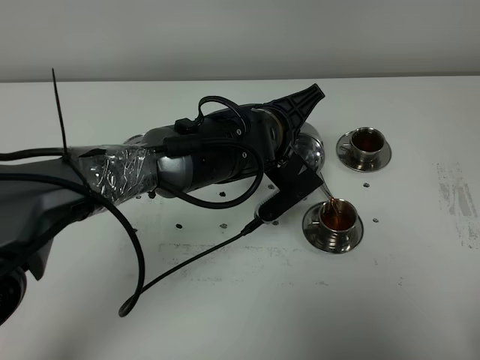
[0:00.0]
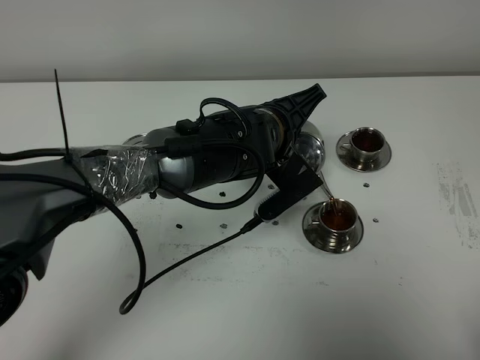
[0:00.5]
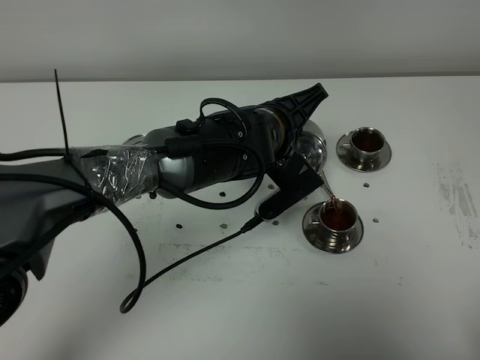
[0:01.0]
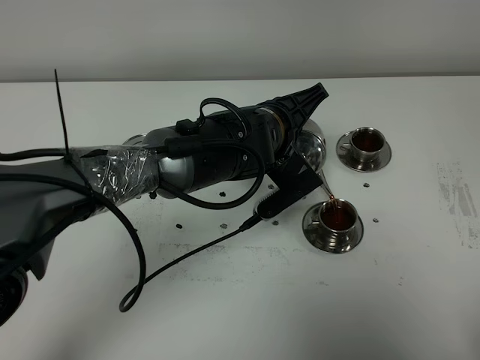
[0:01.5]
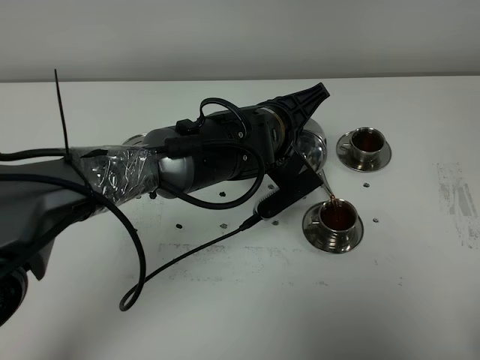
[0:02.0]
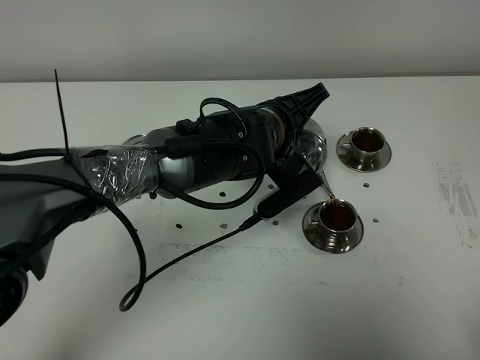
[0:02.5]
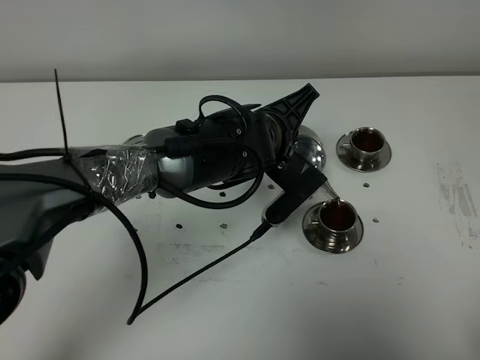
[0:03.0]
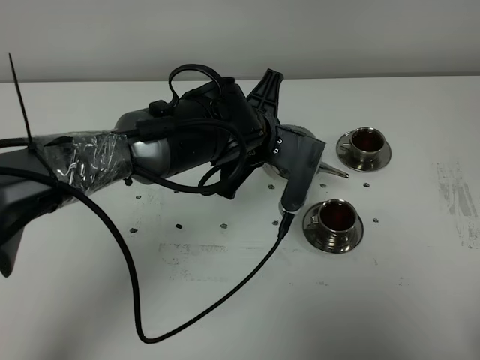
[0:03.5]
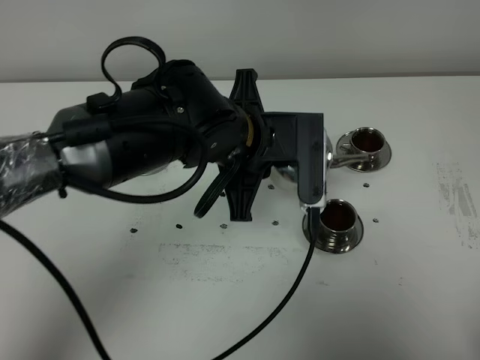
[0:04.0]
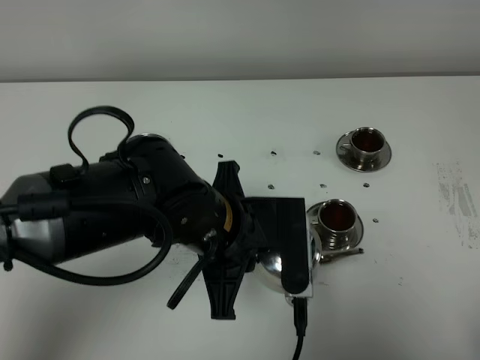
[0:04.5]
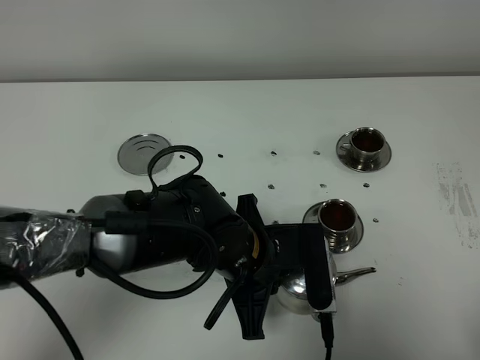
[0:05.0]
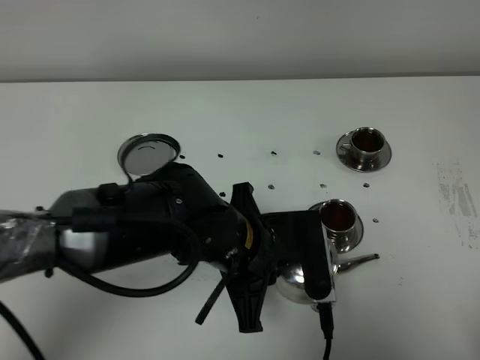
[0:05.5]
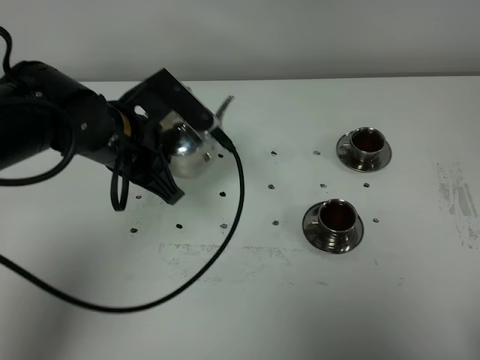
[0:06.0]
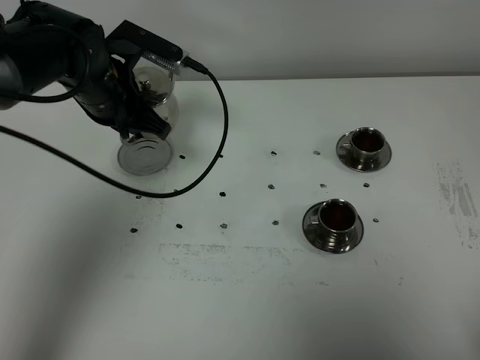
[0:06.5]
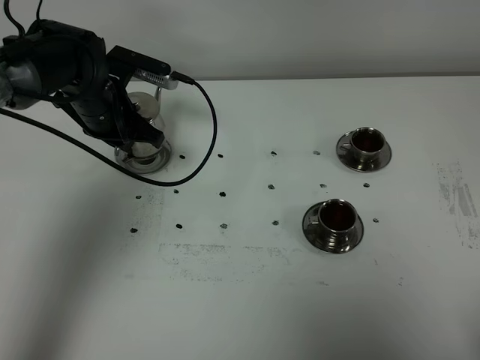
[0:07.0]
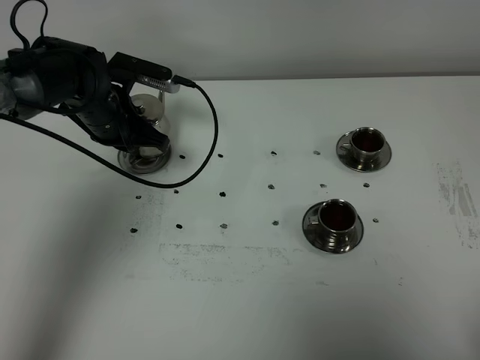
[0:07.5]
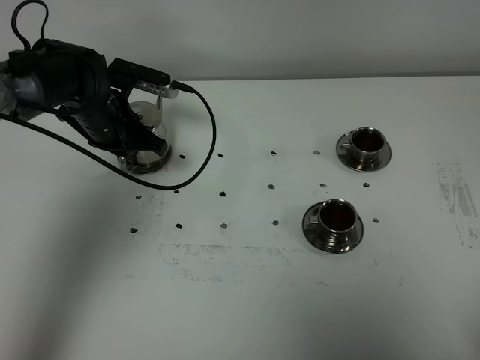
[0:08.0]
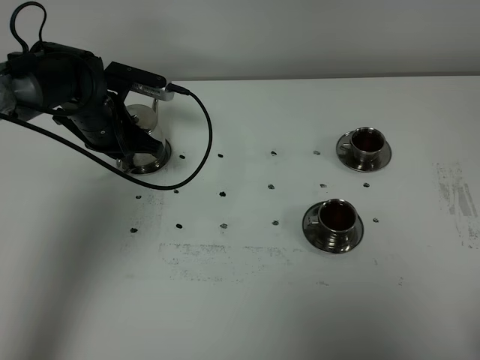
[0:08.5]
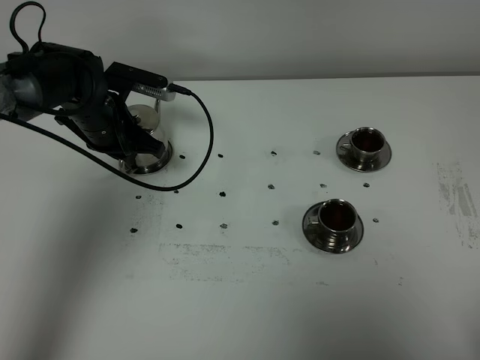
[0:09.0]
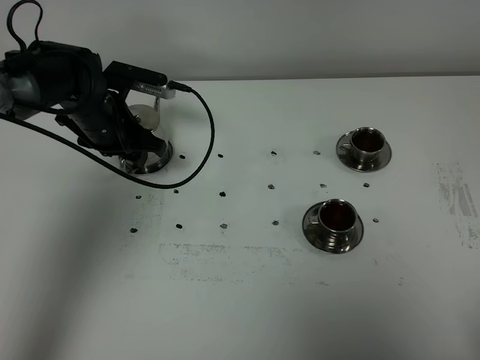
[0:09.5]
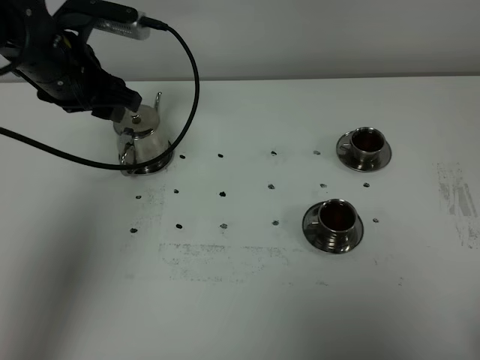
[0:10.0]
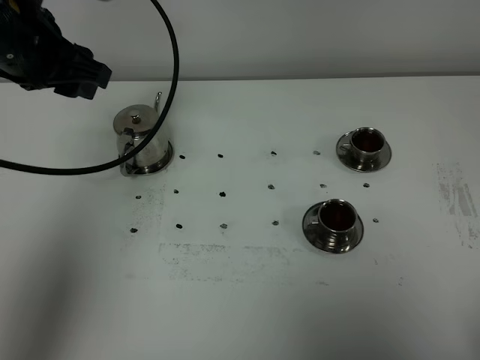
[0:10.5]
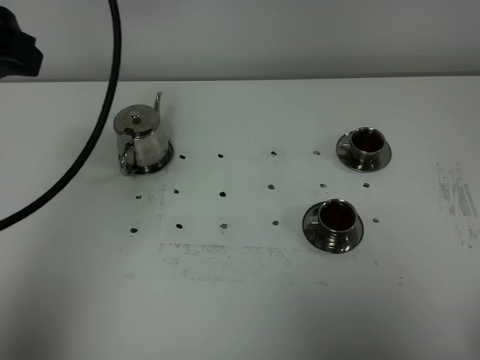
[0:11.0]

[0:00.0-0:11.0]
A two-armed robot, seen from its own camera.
Task of the whole recording: grasp the stainless steel teapot and pour the tea into the two stainless steel teacups one by one, put the stainless steel teapot back in its original place.
Step, 0:00.0 to 0:03.0: Pour tea into the teacup with the left gripper.
0:00.0 to 0:02.0: The two grippers keep their place.
0:03.5 to 0:05.5: The left gripper shifts roughly 10 cm backward.
0:05.5 to 0:07.5: The left gripper moves forward and to the left, roughly 25 cm.
0:07.5 to 0:09.0: Neither gripper changes place.
0:09.0 to 0:11.0: The left gripper shifts some 35 cm upward and backward, and opens up.

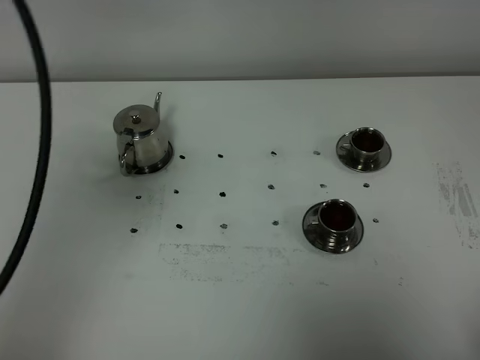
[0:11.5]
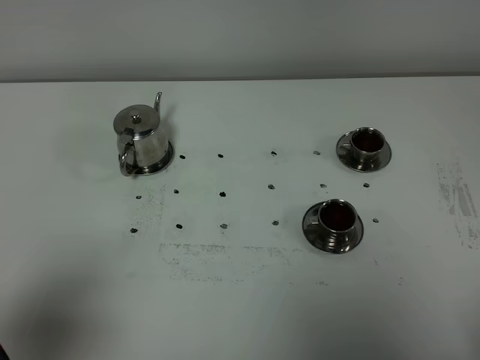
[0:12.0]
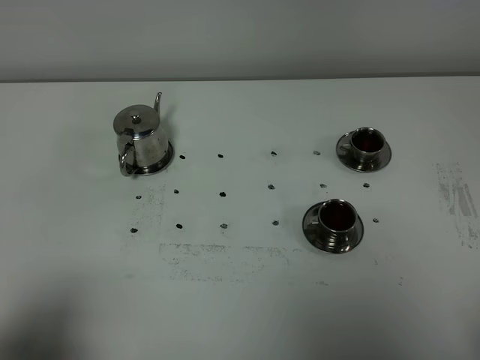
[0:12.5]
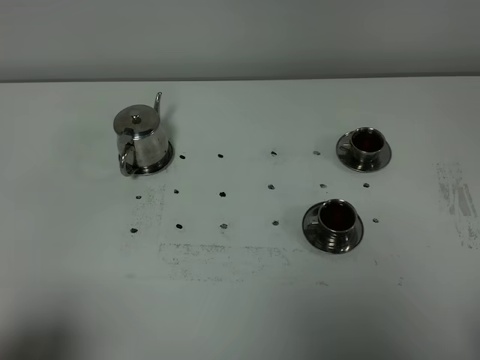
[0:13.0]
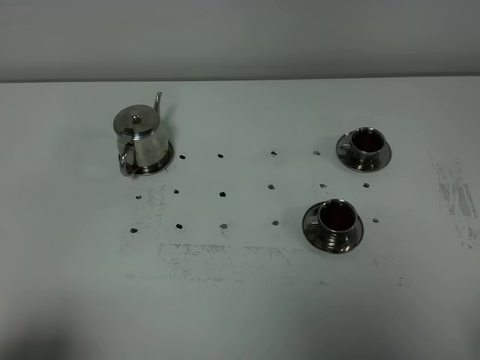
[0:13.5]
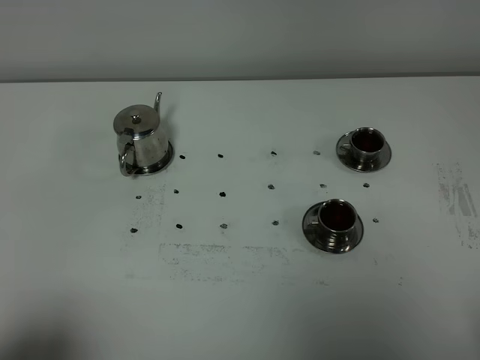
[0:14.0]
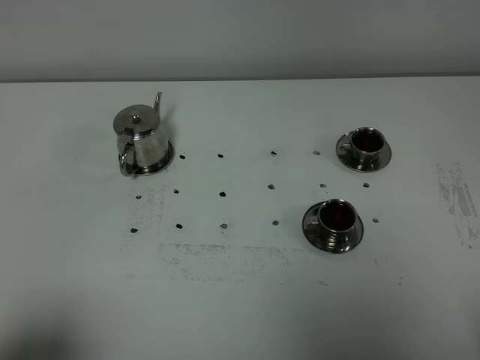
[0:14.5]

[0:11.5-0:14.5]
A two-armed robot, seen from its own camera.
Task of the whole recording: grasp the stainless steel teapot and pour the tea into the two stainless steel teacups one by one, put the stainless steel teapot back in its original place.
0:11.5 to 0:13.0: The left gripper shifts about 25 cm downward and backward.

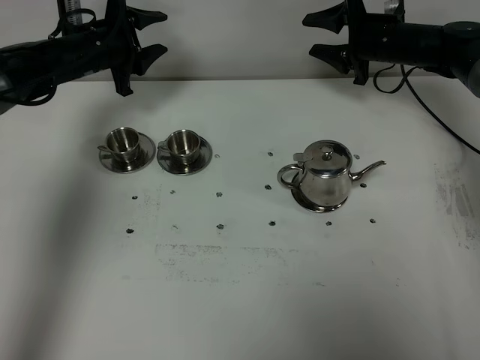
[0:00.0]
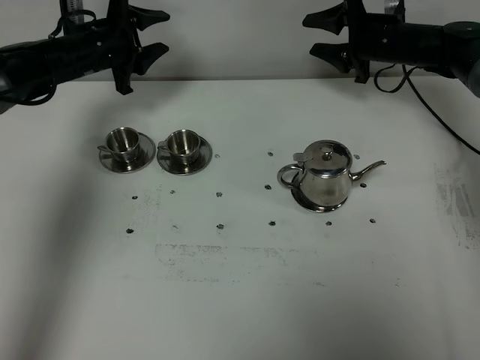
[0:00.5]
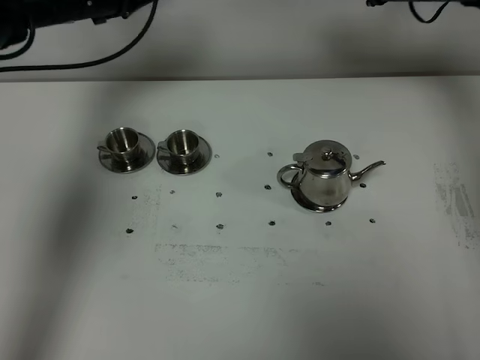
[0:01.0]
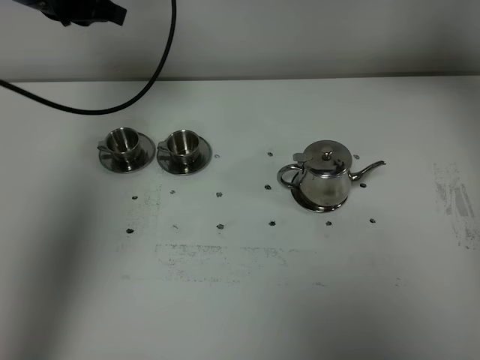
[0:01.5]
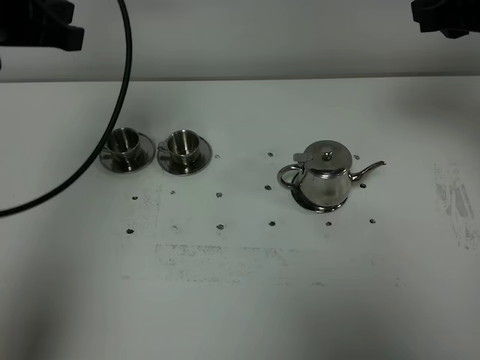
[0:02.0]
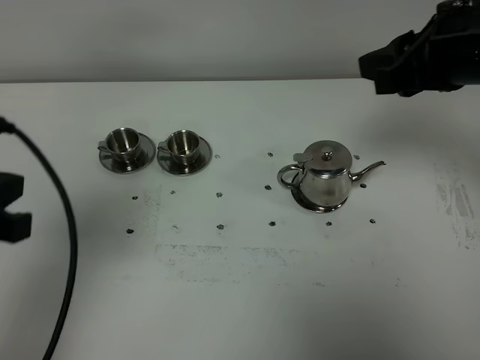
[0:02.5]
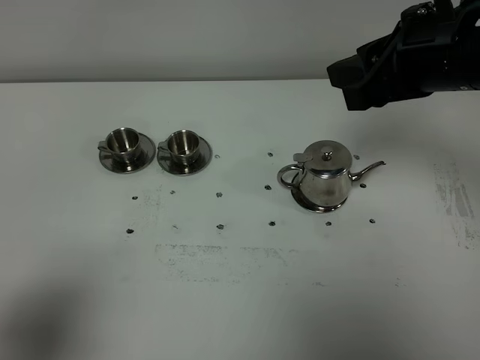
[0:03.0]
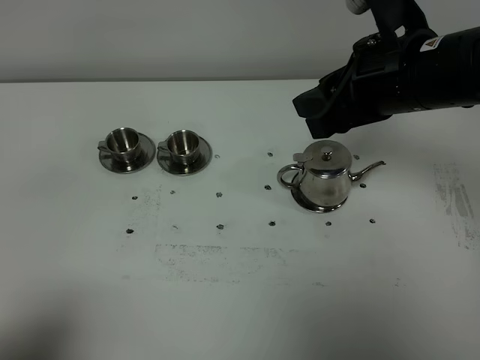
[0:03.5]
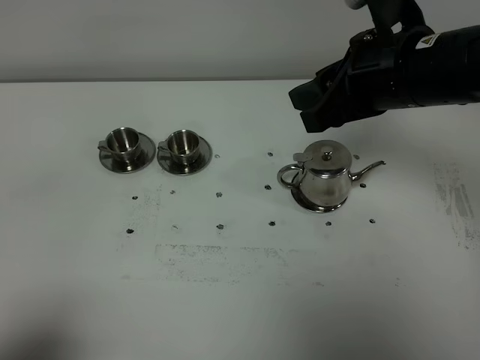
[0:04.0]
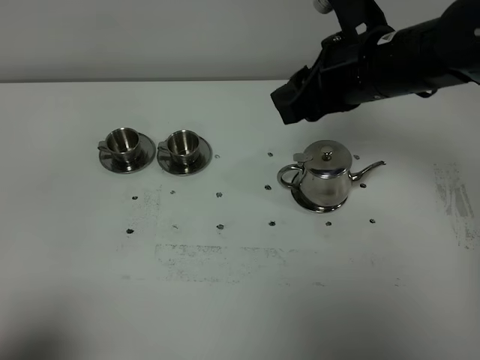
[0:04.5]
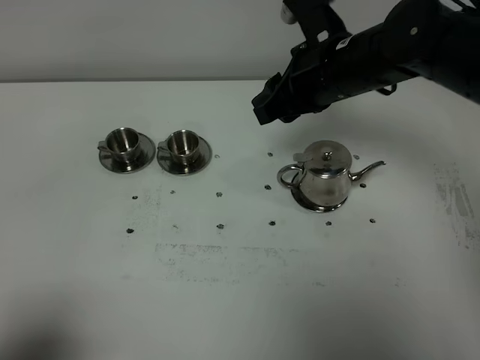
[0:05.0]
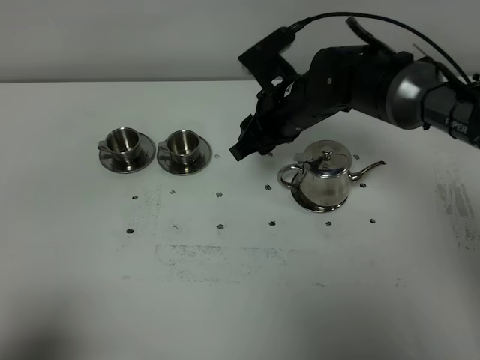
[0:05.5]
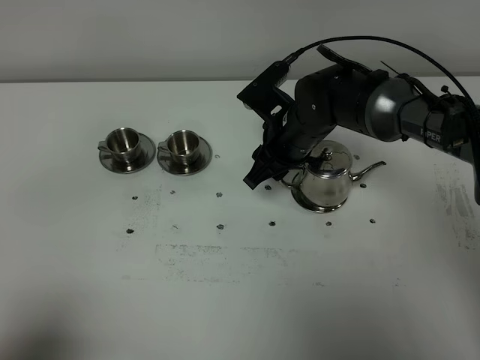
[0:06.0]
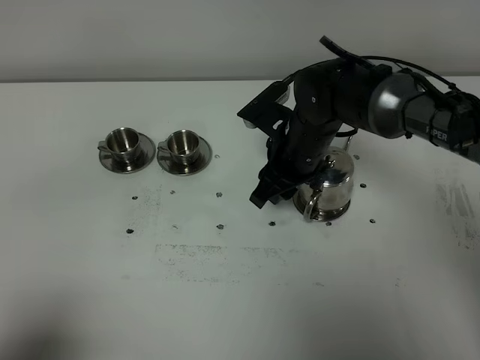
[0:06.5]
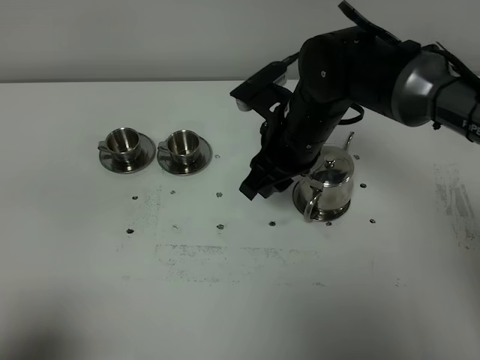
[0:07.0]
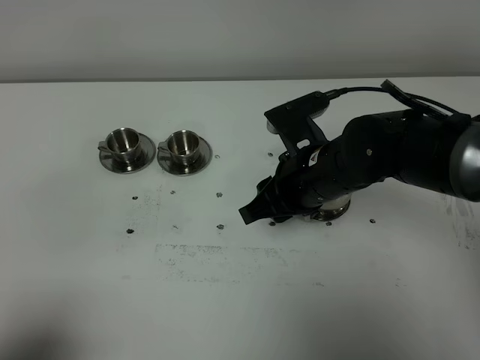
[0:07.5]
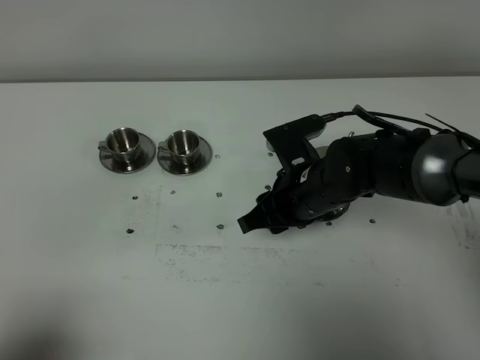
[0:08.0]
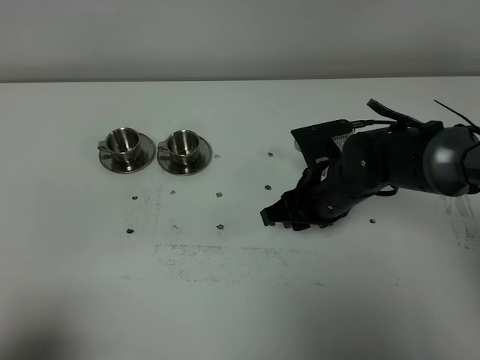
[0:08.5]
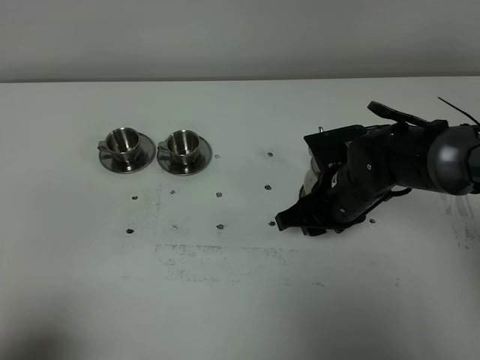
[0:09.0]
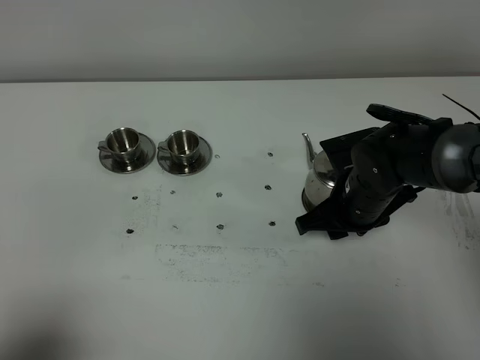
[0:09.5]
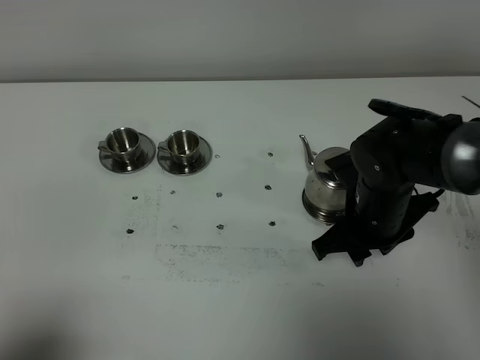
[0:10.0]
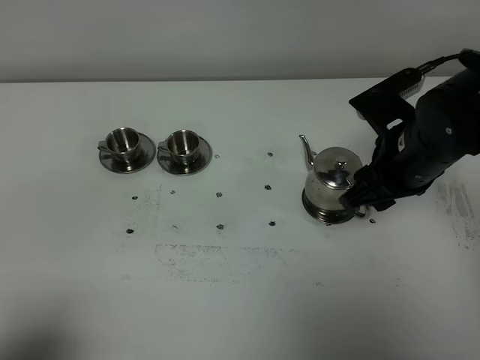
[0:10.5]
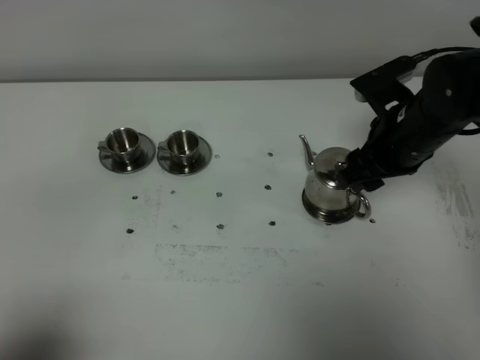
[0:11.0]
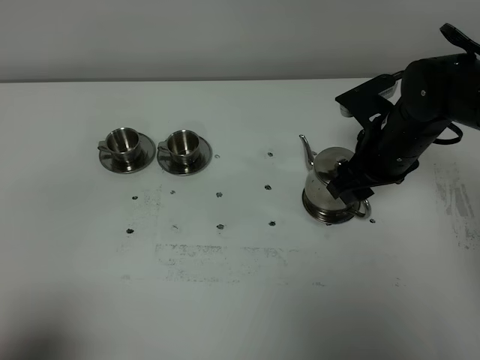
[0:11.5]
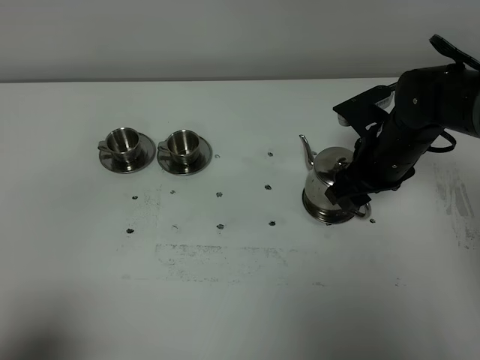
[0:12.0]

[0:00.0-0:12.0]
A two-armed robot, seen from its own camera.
Task of the whole recording: grasp the stainless steel teapot and pour the tea into the two stainless steel teacups one by one, put the stainless steel teapot back in its original place.
0:00.0 to 0:02.0: Both grippers move backward and upward, some 30 cm. The left gripper closes up.
0:02.0 to 0:04.0: The left gripper travels backward by about 35 cm; the right gripper is displaced to the left by roughly 10 cm.
0:04.0 to 0:06.0: The right gripper travels downward, forward and to the left by approximately 20 cm.
0:06.0 to 0:08.0: The right gripper travels backward by roughly 10 cm.
0:08.0 to 0:10.0: The right gripper travels to the right by roughly 5 cm.
0:10.0 to 0:12.0: The right gripper heads forward, covering roughly 5 cm, and opens its fingers.
